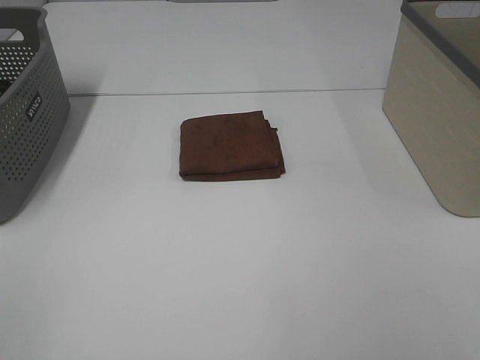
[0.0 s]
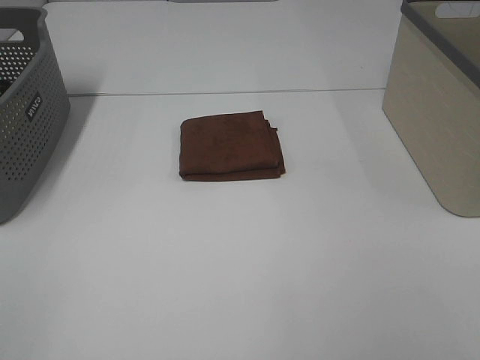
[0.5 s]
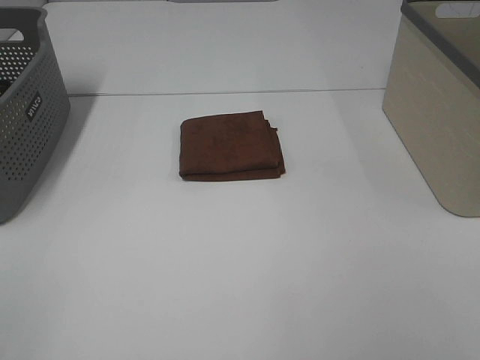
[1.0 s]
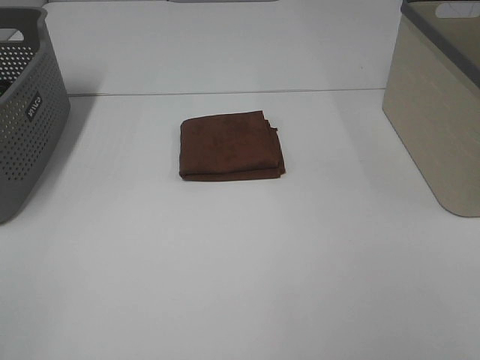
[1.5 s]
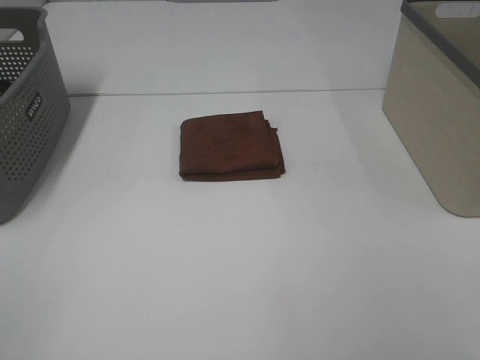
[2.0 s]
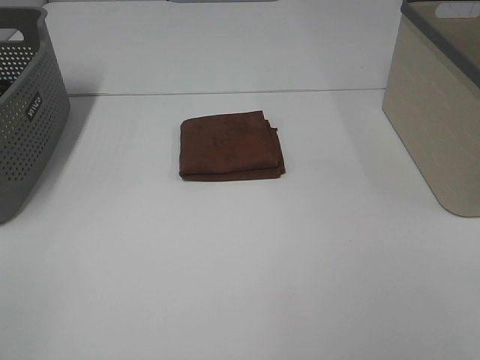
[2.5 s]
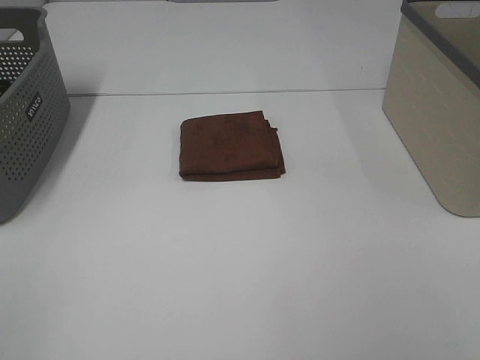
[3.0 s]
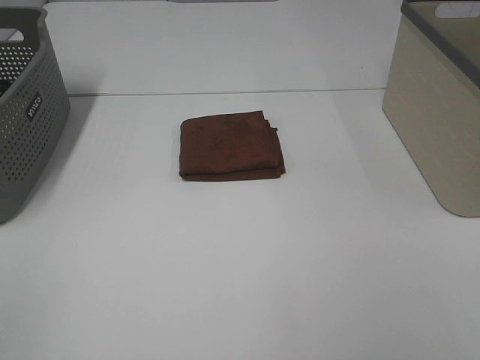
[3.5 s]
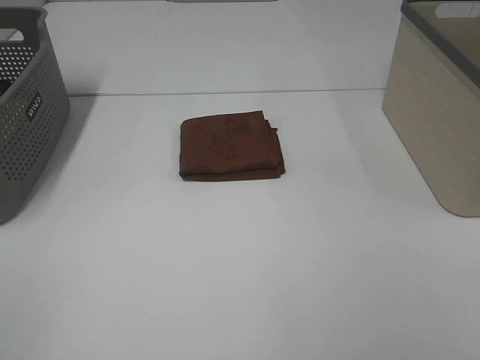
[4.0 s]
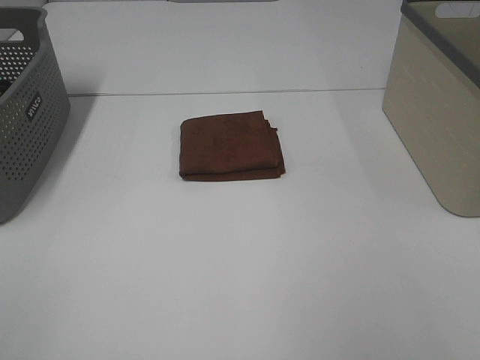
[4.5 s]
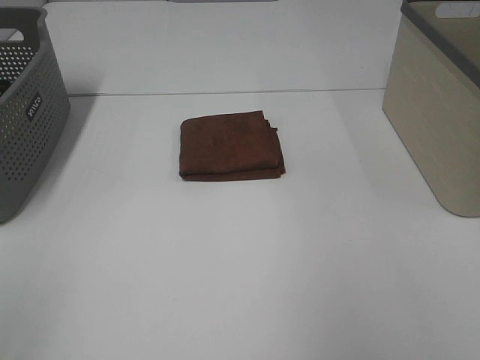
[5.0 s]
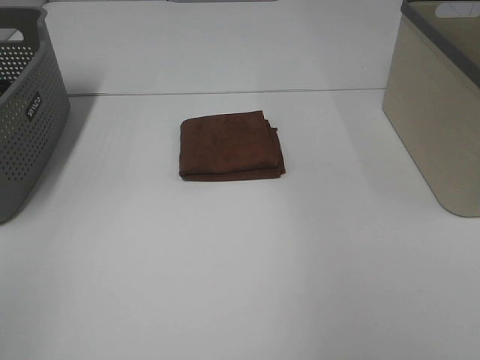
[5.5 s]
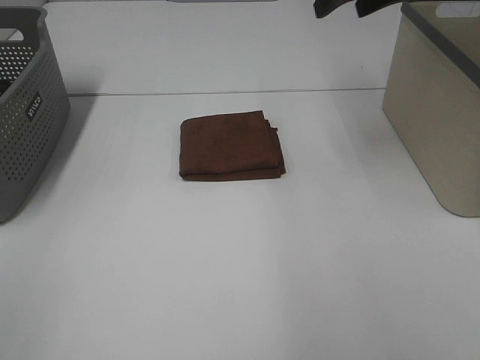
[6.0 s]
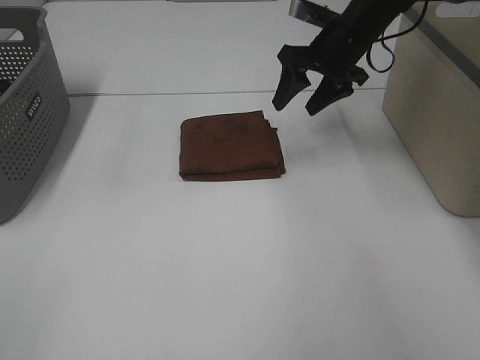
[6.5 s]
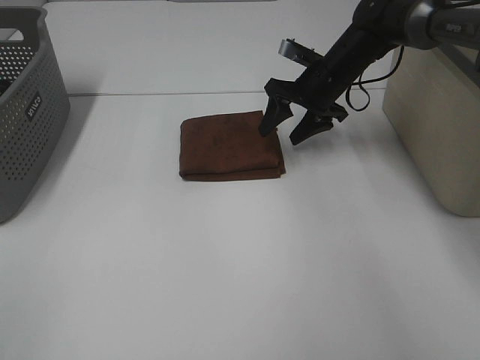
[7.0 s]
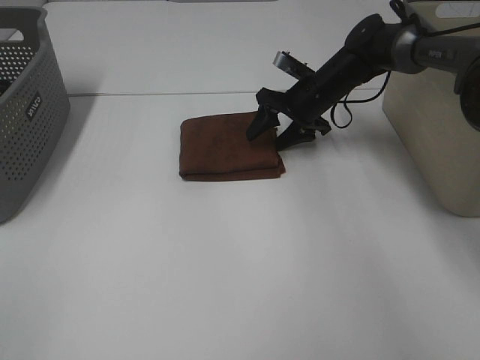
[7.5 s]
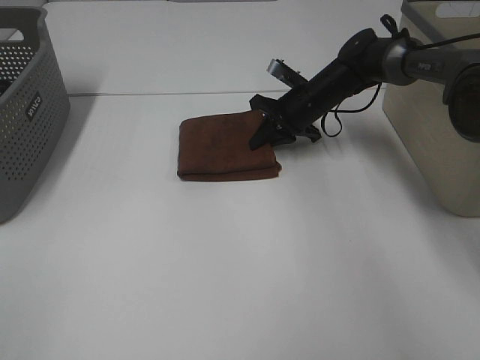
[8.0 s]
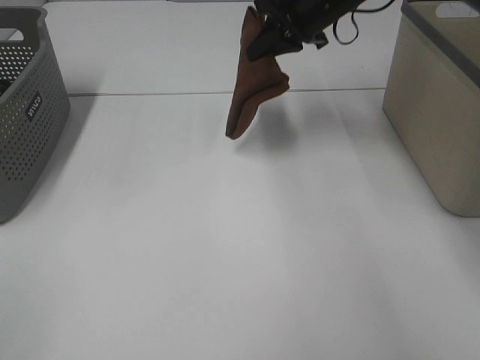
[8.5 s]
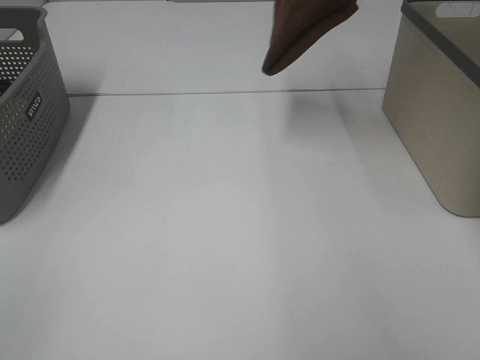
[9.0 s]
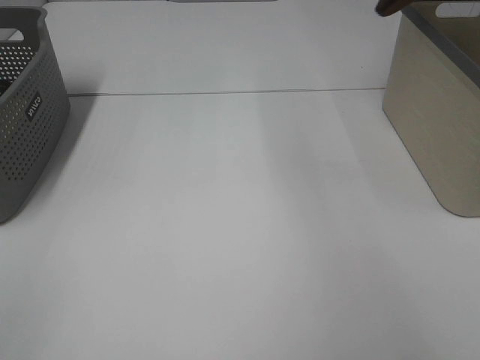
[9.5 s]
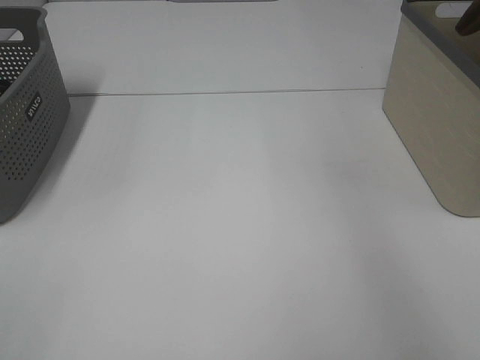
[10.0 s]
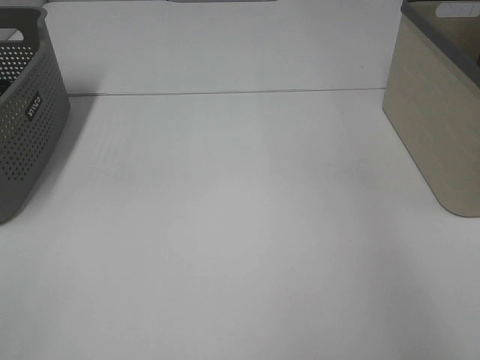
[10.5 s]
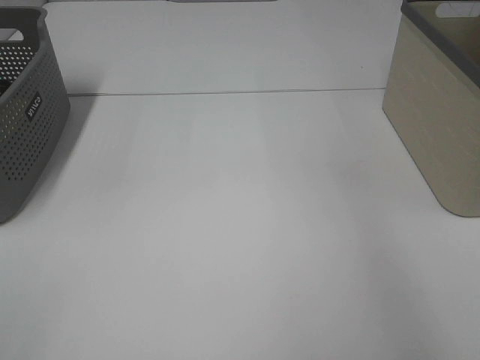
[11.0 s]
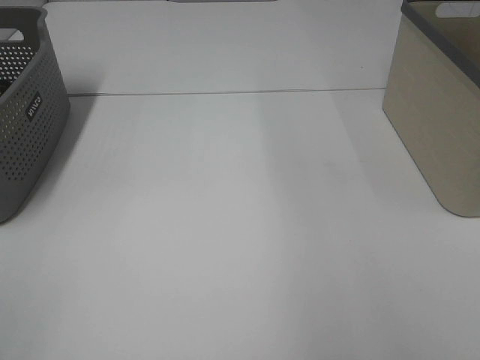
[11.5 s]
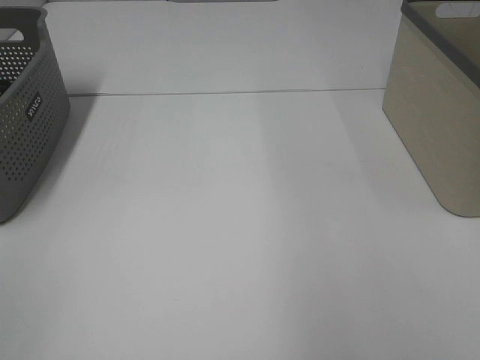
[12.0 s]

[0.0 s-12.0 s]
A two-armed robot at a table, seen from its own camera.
Step, 0.0 to 8.0 s: Right hand: grab the folded brown towel.
Step, 8.5 to 10.5 s: Right hand: place the brown towel in right basket.
0.0 to 4.0 s: Neither gripper changes place.
4.0 to 6.0 s: The right gripper moves forward, about 40 cm.
6.0 to 8.0 s: The right gripper travels downward by approximately 25 cm, and closes up.
8.0 to 10.0 s: The right gripper heads upward and to the right, covering approximately 40 cm.

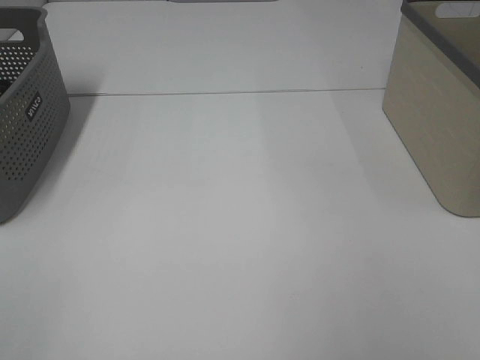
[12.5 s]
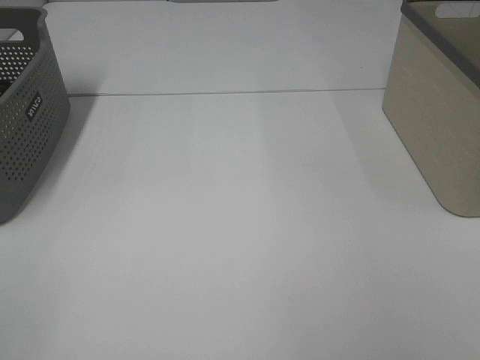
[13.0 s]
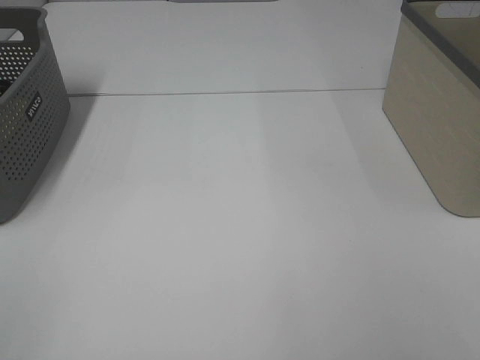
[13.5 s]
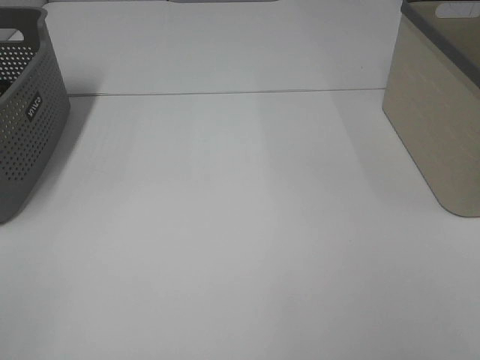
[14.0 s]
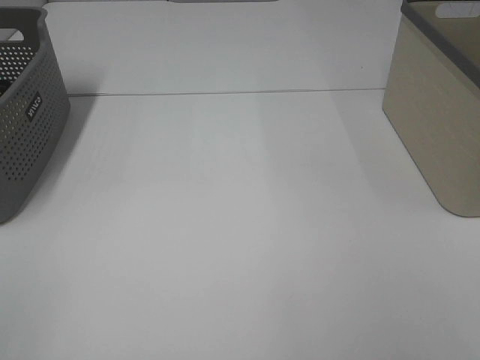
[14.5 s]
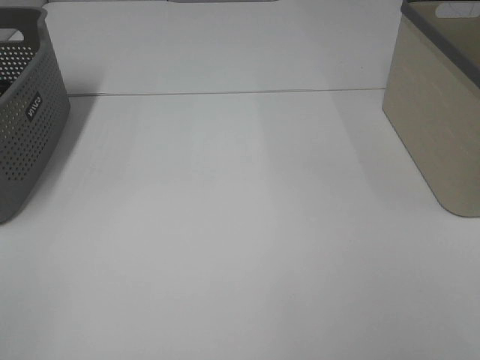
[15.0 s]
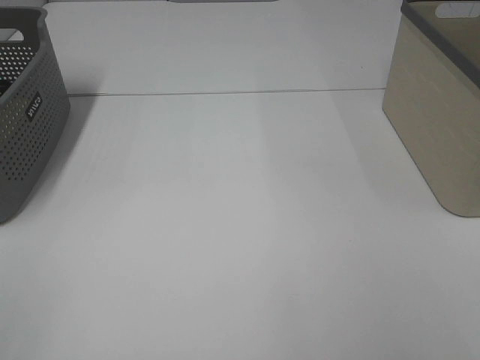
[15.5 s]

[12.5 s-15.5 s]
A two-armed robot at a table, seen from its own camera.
14.0 to 15.5 s: Both grippers stay put.

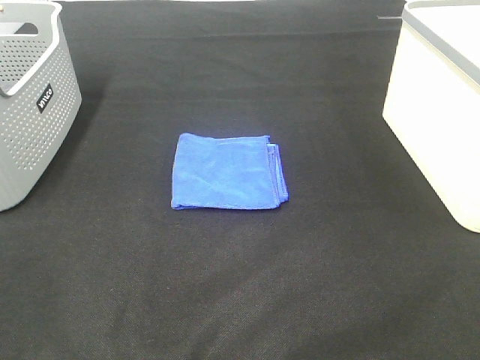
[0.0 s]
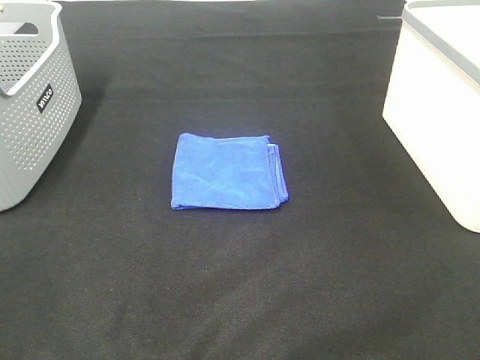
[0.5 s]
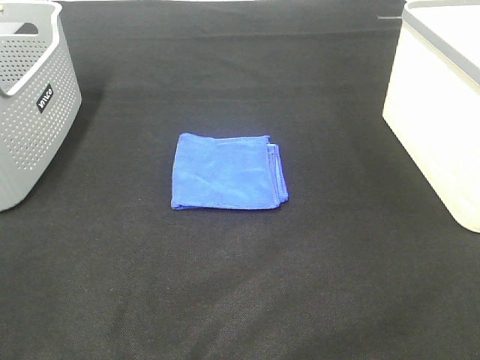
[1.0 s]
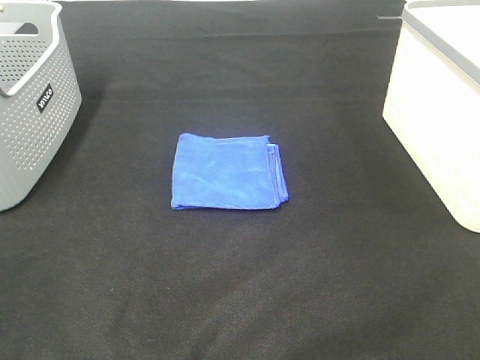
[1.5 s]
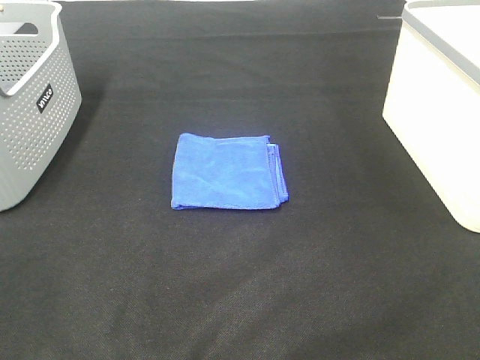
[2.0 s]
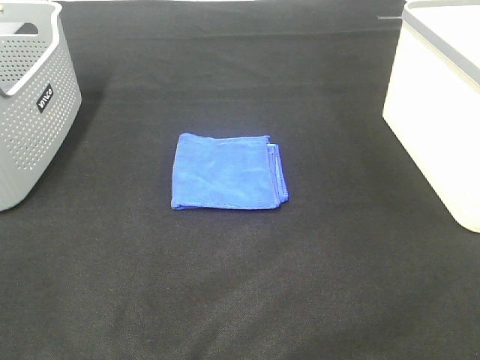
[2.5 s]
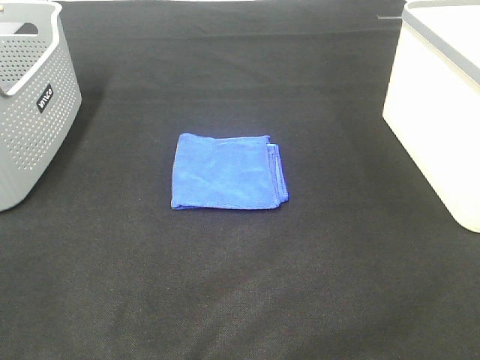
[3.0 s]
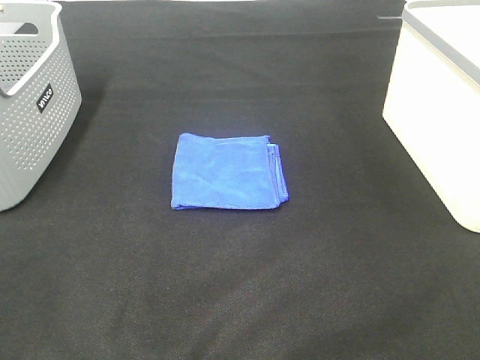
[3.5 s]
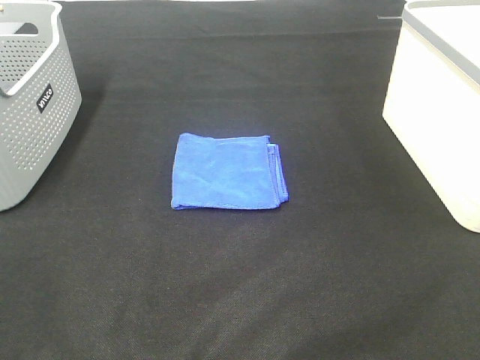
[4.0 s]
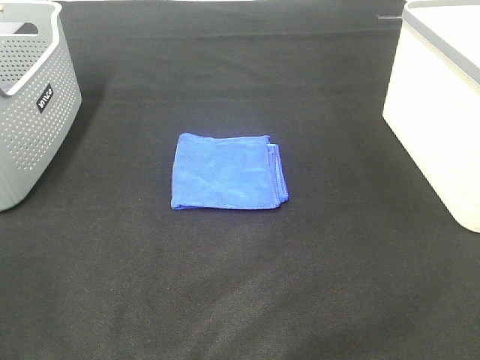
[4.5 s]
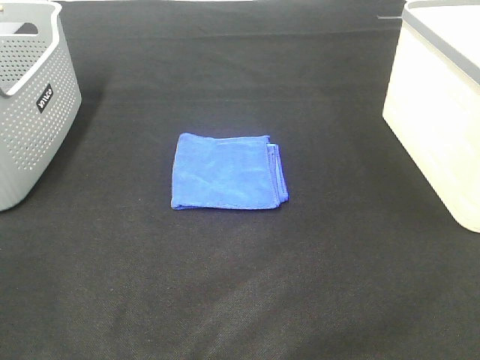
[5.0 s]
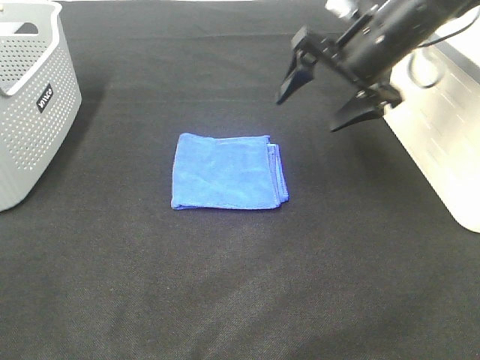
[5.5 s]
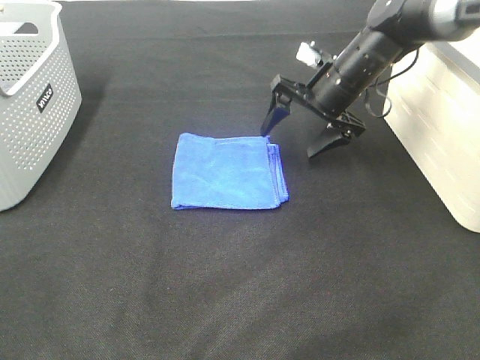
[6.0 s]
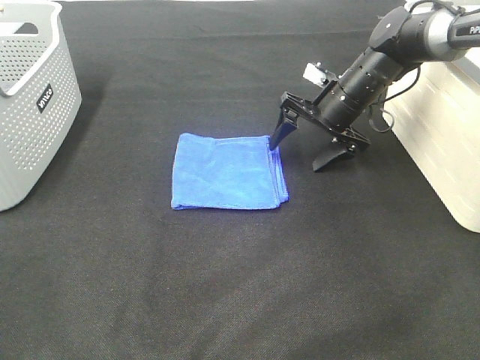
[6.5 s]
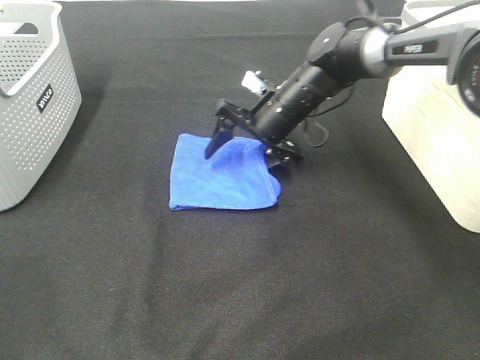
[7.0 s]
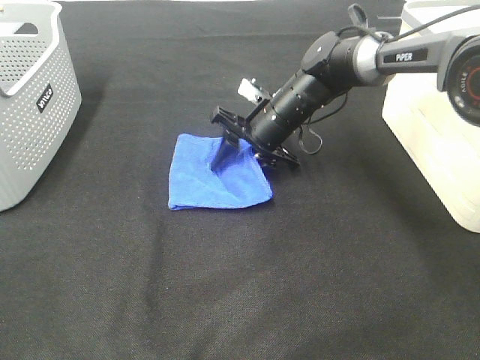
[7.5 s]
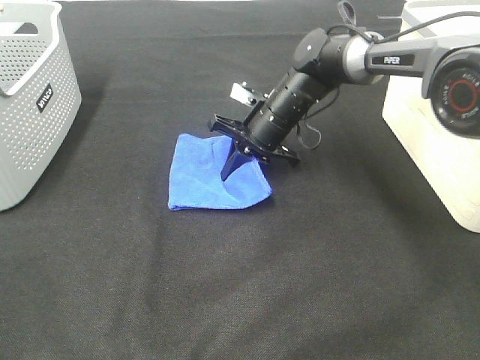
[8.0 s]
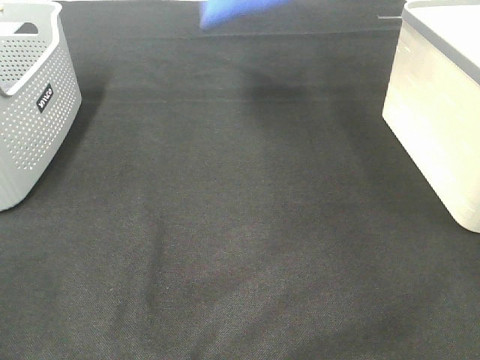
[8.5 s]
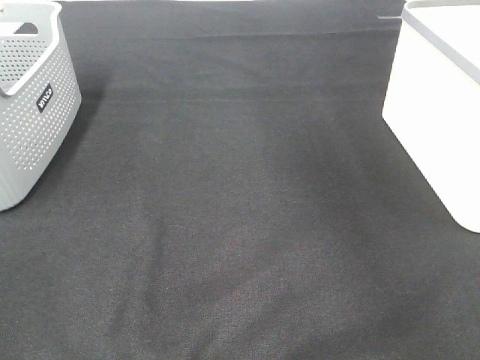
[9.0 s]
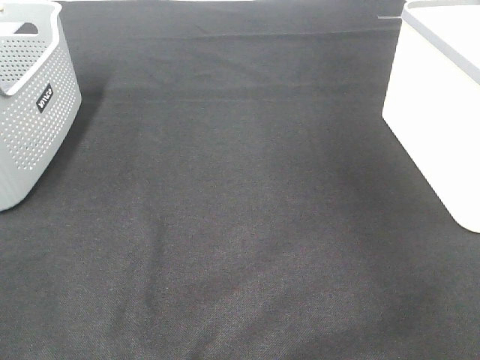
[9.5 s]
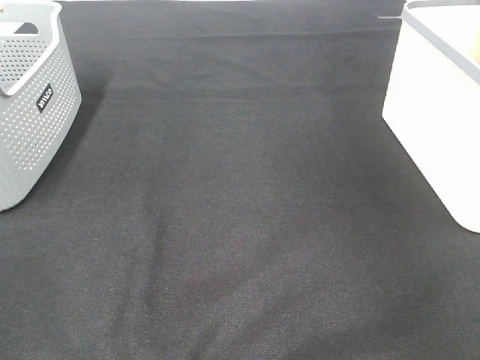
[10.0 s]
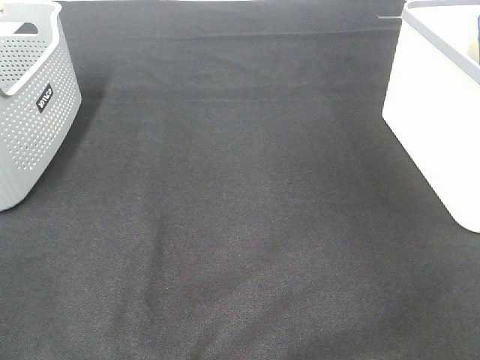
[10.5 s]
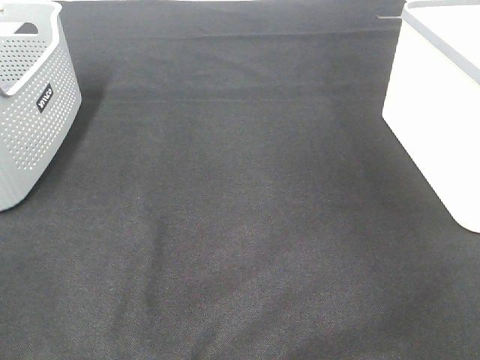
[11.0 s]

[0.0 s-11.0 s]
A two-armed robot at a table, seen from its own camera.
Step, 0.0 to 7.5 s: Right hand: grab the folded blue towel.
Step, 8.0 to 11.0 s: Right hand: place the blue towel in right basket.
0.0 to 3.5 s: Neither gripper changes place.
3.5 to 5.5 s: The right gripper moves forward, about 40 cm.
5.5 to 7.5 s: The right gripper travels downward and to the left by roughly 15 cm, and closes its fingers.
7.5 to 9.0 s: The right gripper is displaced upward and to the right by some 50 cm, and closes its fingers.
